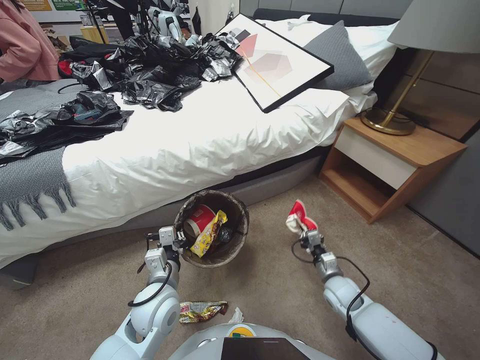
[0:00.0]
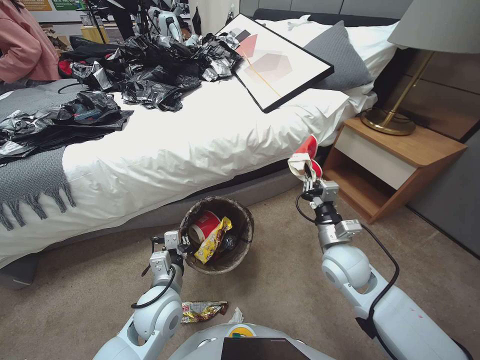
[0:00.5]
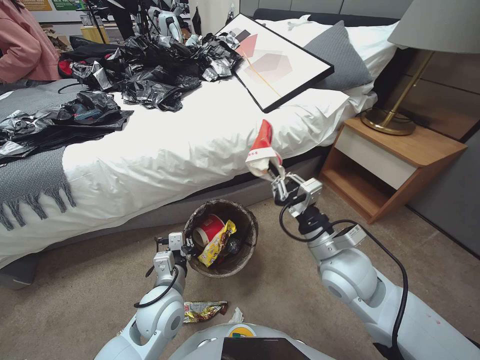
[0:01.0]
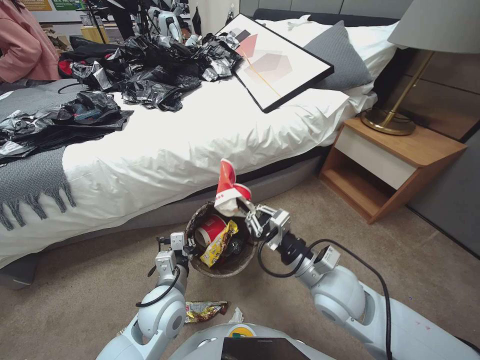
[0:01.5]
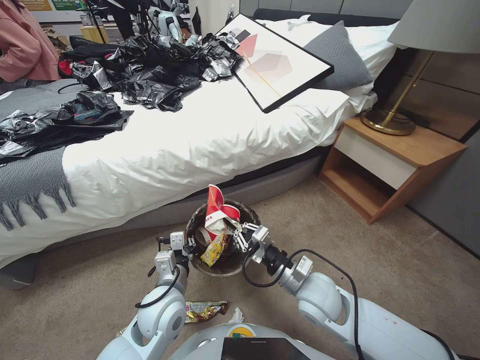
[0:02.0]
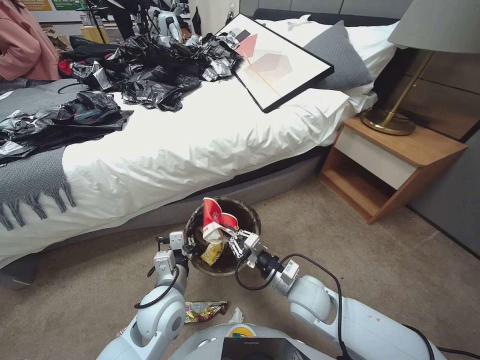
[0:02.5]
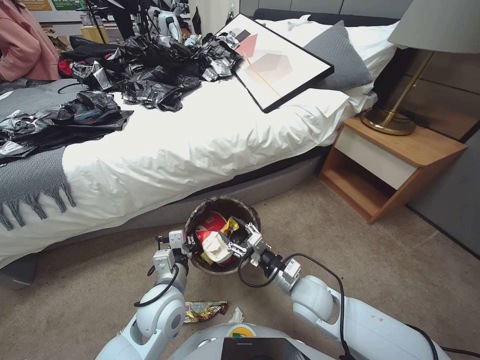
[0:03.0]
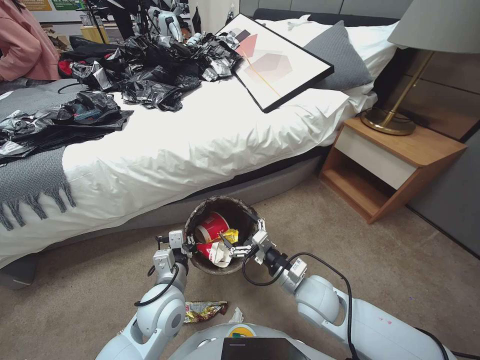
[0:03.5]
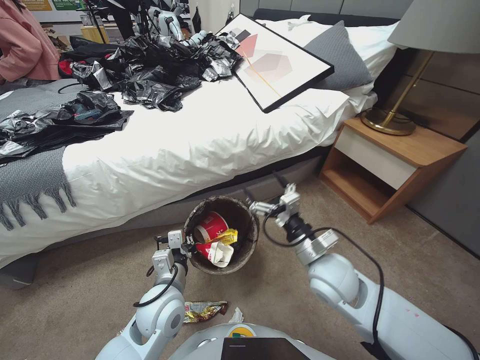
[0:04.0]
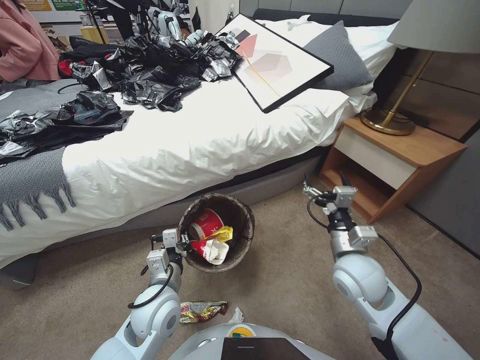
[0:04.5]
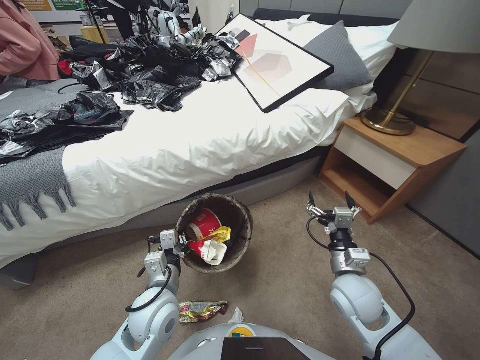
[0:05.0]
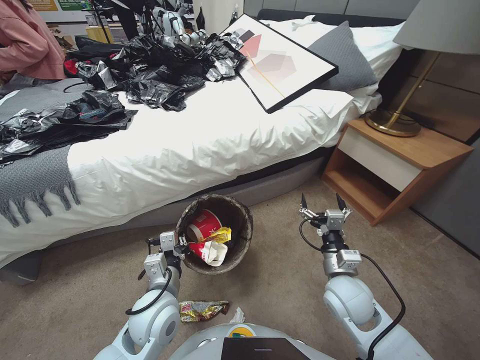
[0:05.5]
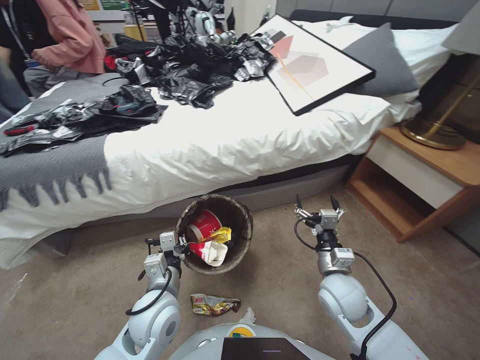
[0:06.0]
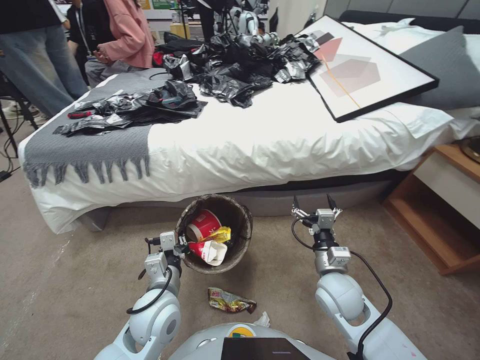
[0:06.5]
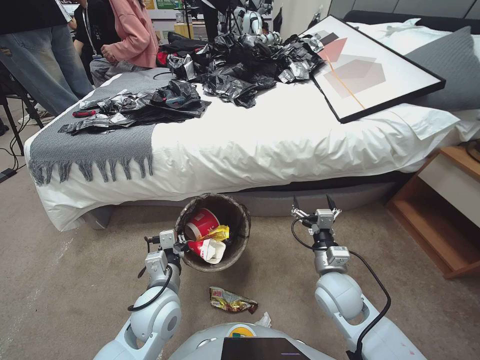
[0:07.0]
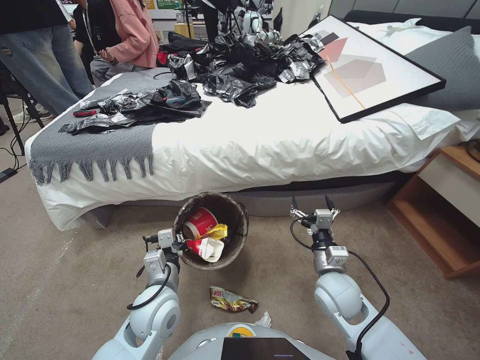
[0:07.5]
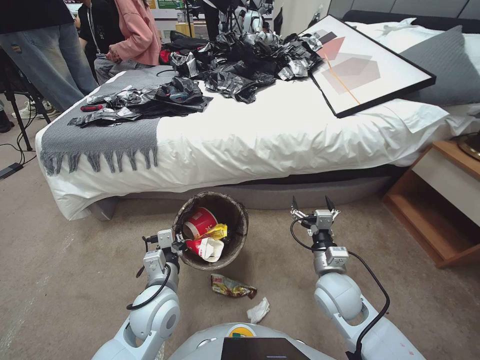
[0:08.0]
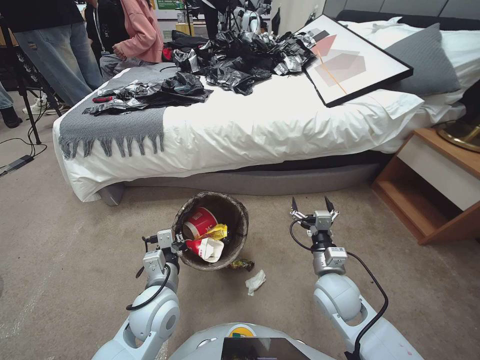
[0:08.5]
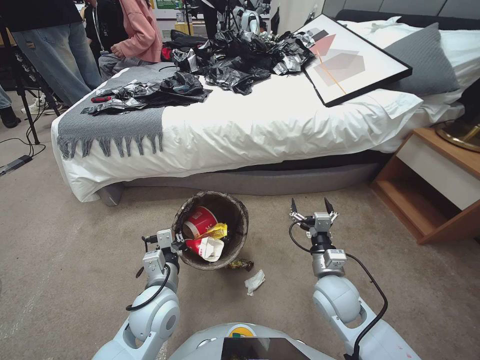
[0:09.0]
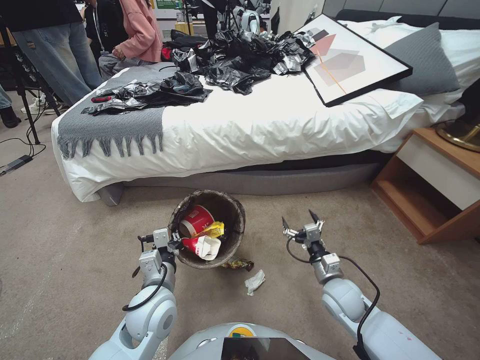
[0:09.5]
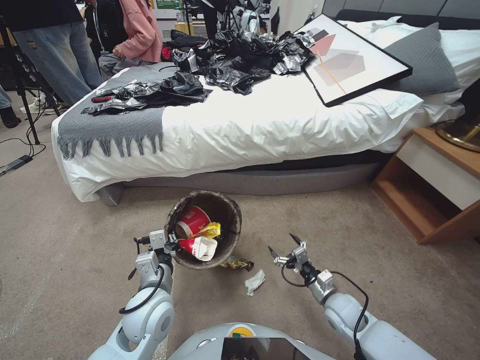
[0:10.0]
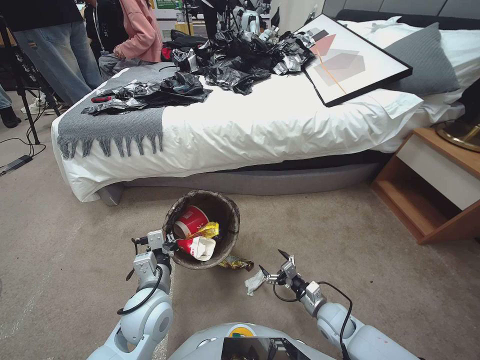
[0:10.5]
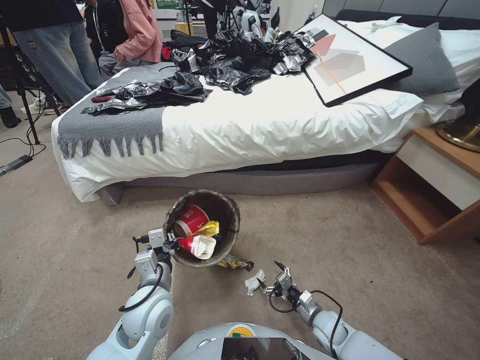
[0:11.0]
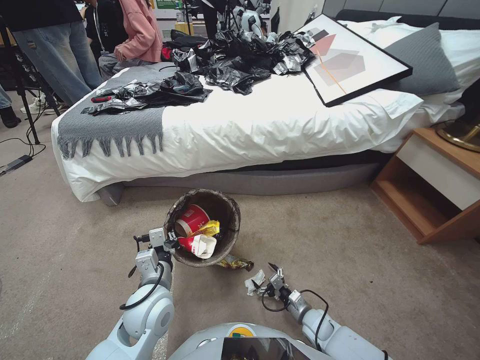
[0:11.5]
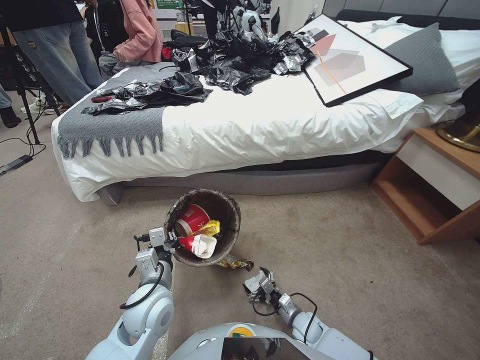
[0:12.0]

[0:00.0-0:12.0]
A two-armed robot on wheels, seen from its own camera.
Task of the whole recording: Pick up the trash bin, then pick up the garbage from the floor and place it into the trash bin.
0:00.0 to 0:02.0: The right gripper shifts approximately 25 cm upward and to the left.
0:02.0 to 0:04.0: The right gripper opens its fingers.
0:04.0 to 0:06.0: The right gripper moves to the right, approximately 5 cm.
0:08.0 to 0:10.0: The right gripper shifts roughly 15 cm downward and to the right.
0:10.0 to 0:12.0: The right gripper shifts about 15 cm downward and to the left.

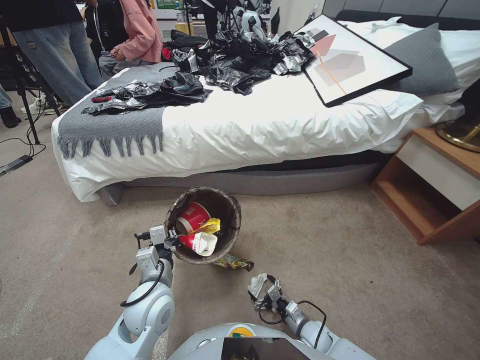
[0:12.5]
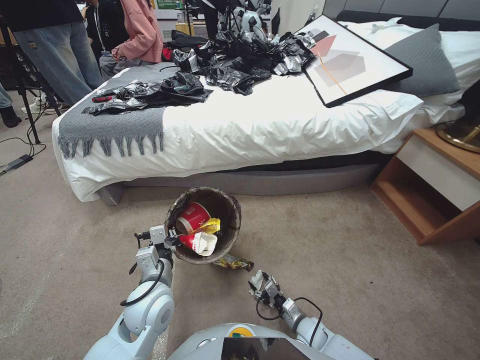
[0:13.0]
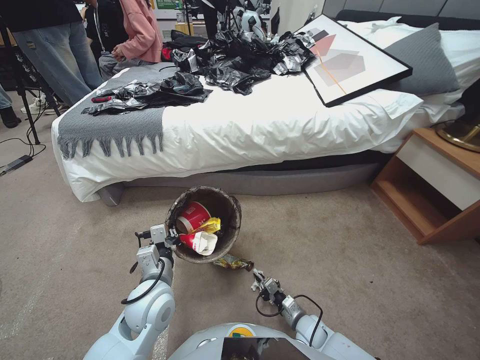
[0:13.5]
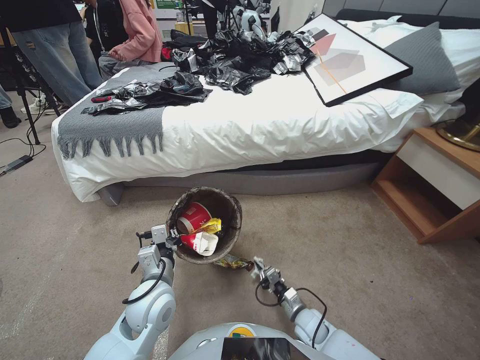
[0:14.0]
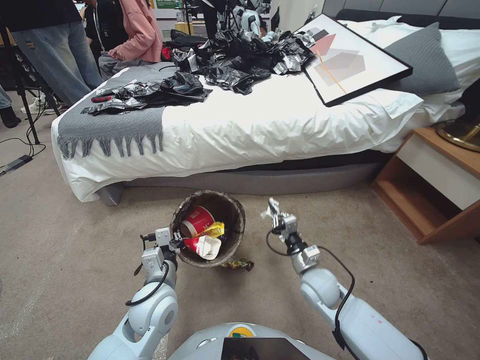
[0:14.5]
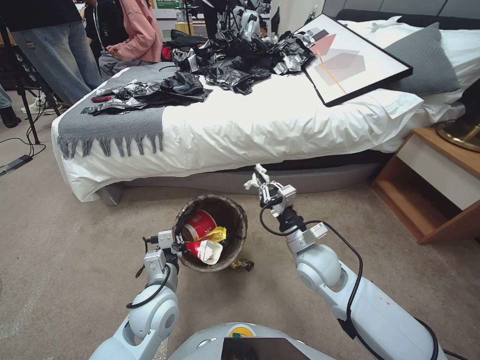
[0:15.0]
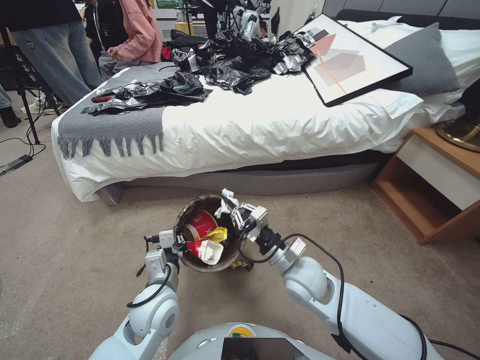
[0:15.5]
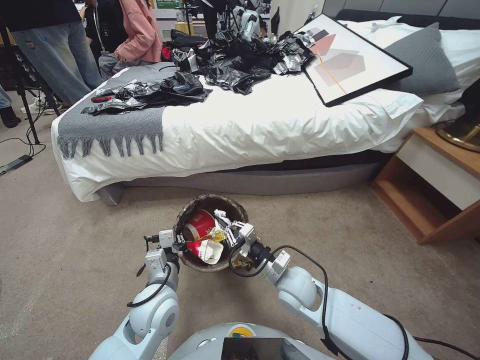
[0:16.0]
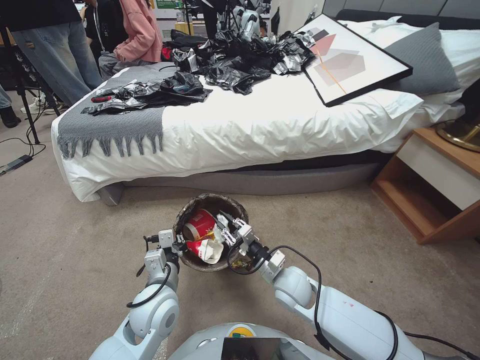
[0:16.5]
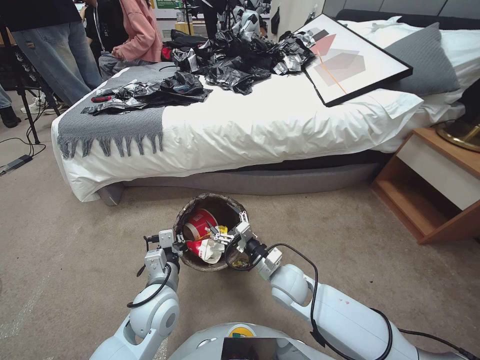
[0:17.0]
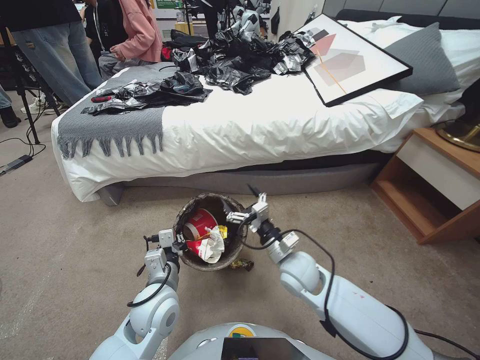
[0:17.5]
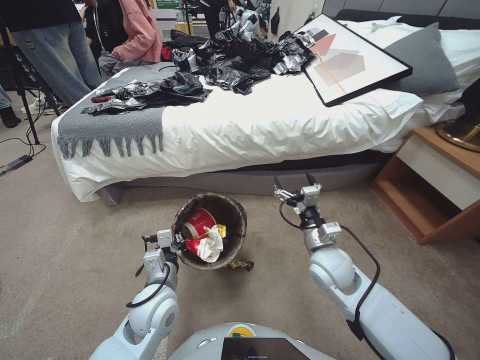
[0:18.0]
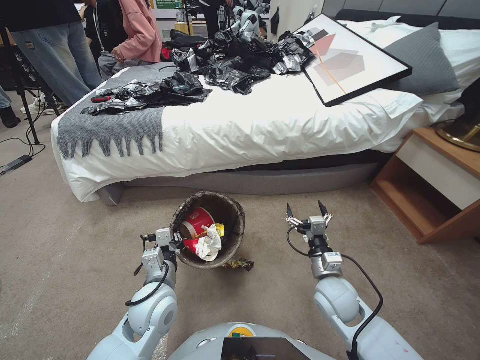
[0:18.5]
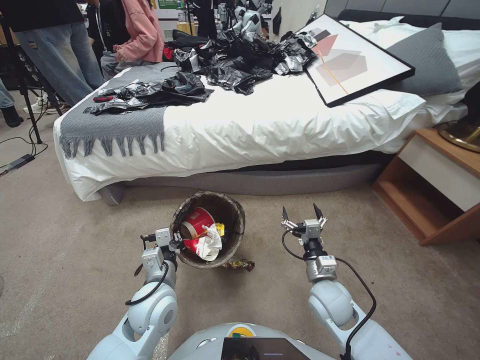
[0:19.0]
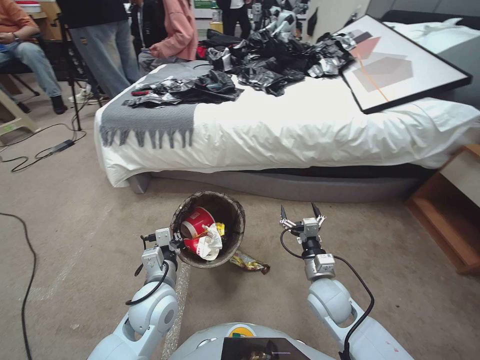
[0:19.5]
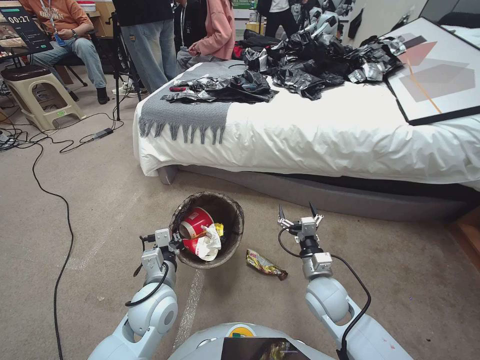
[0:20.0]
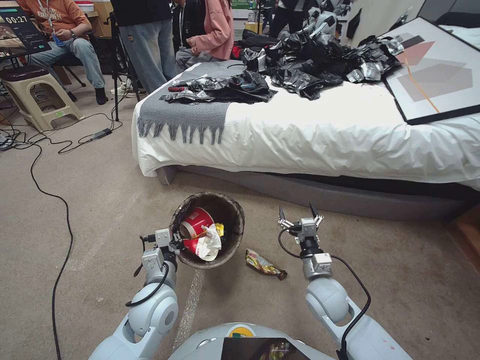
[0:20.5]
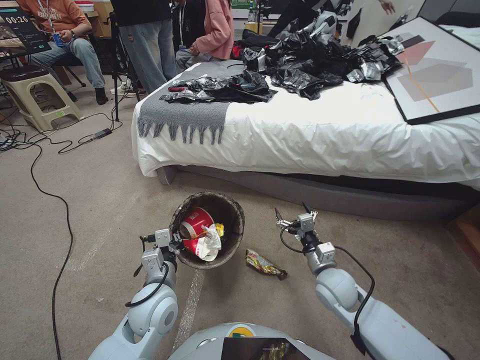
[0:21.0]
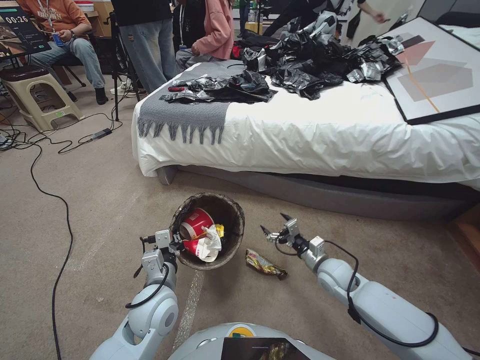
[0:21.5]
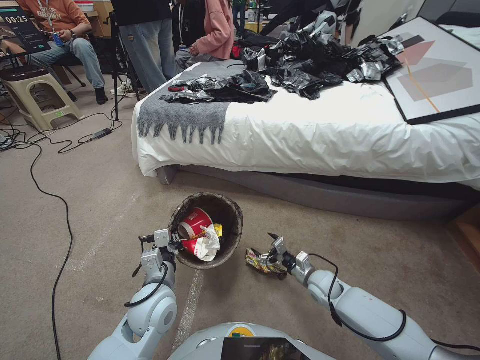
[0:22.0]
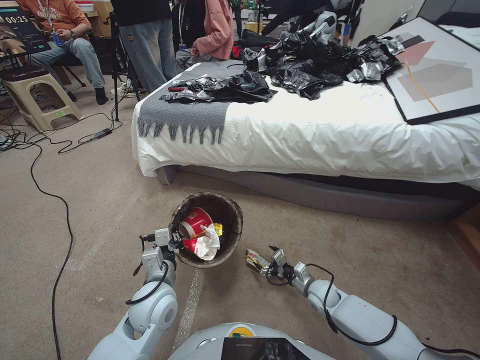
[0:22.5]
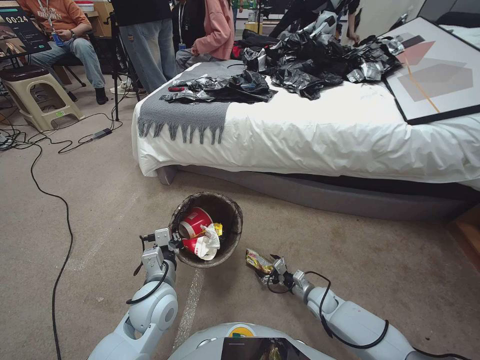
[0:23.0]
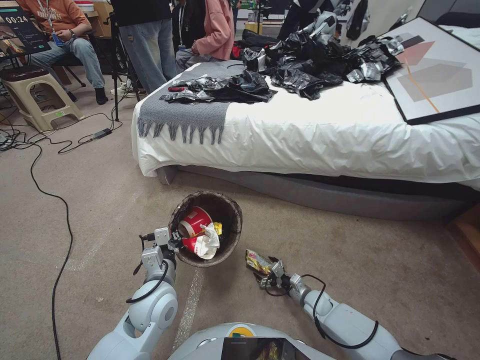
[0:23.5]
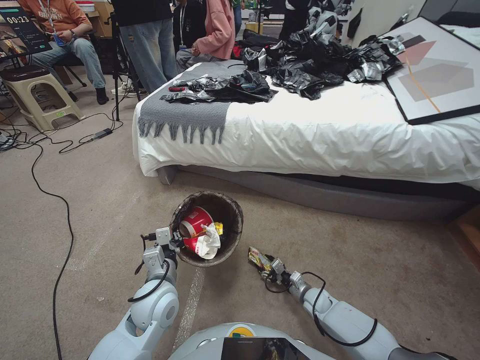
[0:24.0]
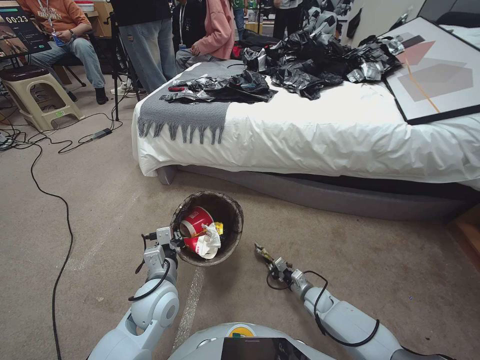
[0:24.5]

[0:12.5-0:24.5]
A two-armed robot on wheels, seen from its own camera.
Task of the whole recording: Pick up the trash bin, then pick up the garbage from the floor and place it into the trash bin.
0:12.5 to 0:14.5: The right gripper is displaced upward and forward by approximately 20 cm, and closes.
0:14.5 to 0:16.5: The right gripper goes some 10 cm to the left, and moves some 10 cm upward and comes back.
0:16.5 to 0:18.5: The right gripper travels to the right by roughly 10 cm, and opens up.
0:20.5 to 0:22.5: The right gripper travels downward and to the right by some 15 cm.
0:22.5 to 0:24.5: The right gripper moves downward, about 5 cm, and closes.

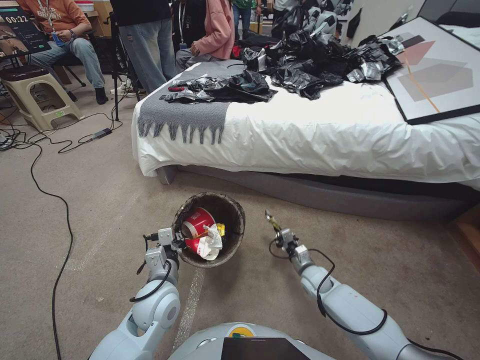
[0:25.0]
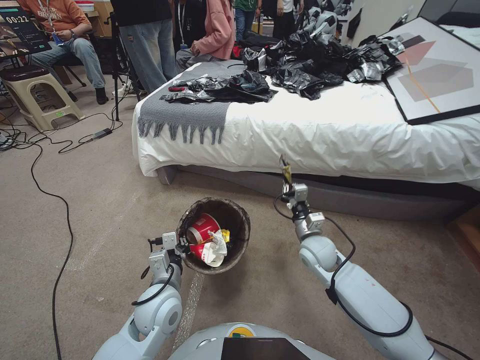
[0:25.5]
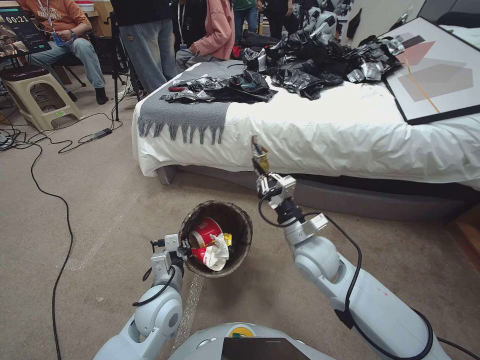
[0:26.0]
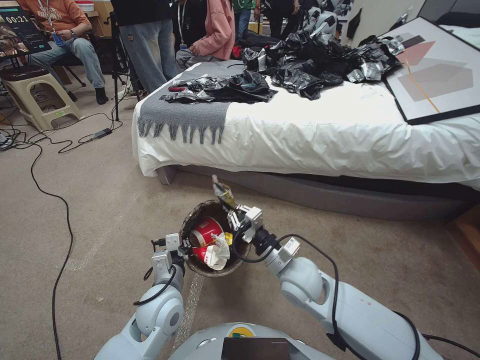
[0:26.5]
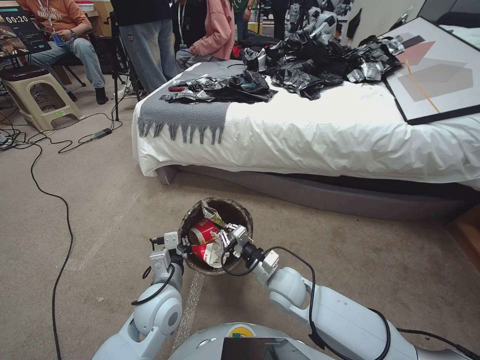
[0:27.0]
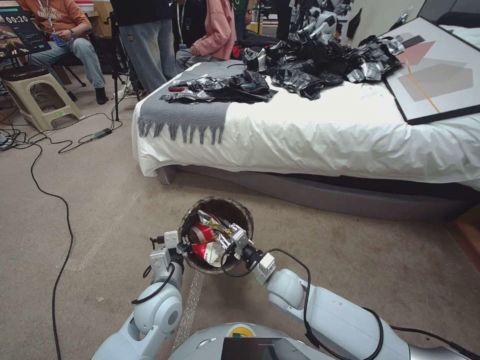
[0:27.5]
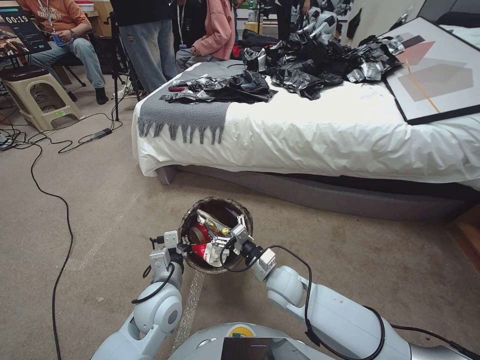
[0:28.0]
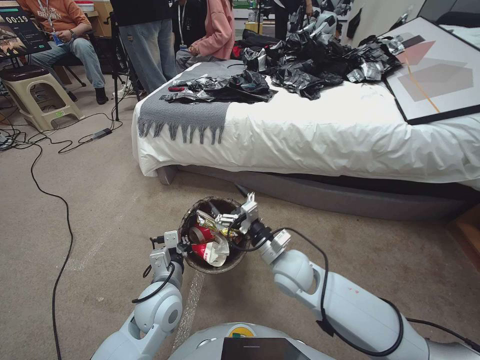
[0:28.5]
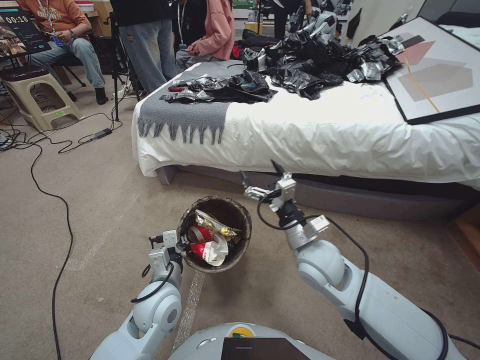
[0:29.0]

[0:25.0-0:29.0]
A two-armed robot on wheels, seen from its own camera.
Task of the whole recording: Pick up the trash bin, then pick up the garbage from the floor and place it into the trash bin.
0:25.0 to 0:27.0: The right gripper goes some 20 cm upward and to the left.
0:27.0 to 0:29.0: The right gripper moves upward, approximately 5 cm, and opens.
